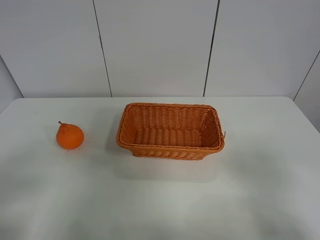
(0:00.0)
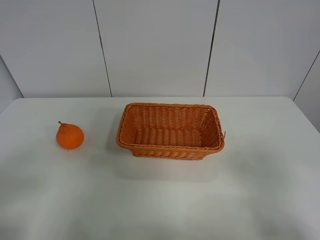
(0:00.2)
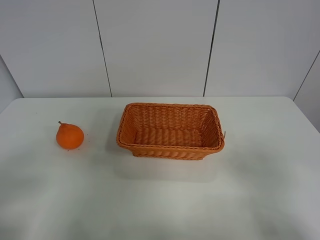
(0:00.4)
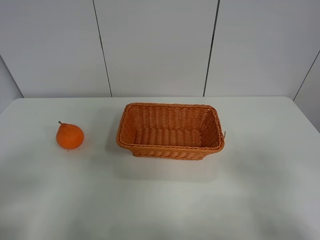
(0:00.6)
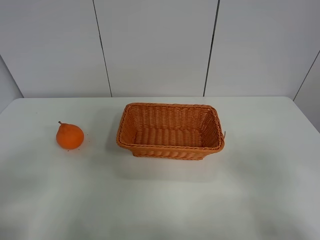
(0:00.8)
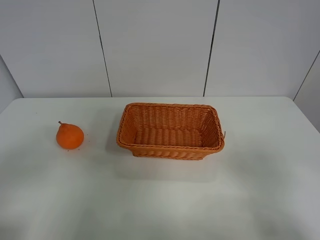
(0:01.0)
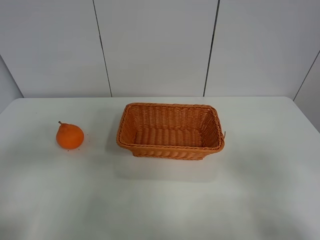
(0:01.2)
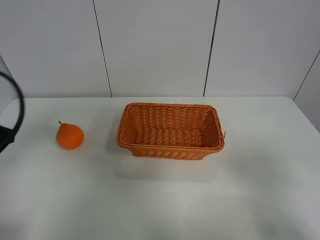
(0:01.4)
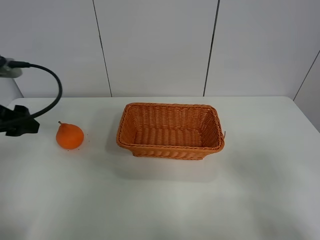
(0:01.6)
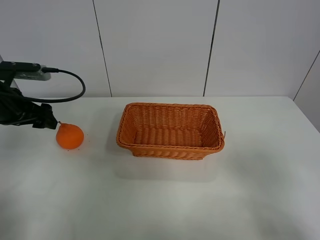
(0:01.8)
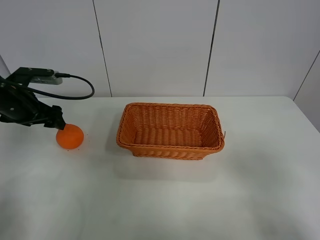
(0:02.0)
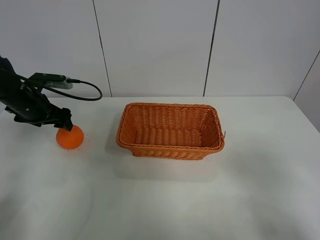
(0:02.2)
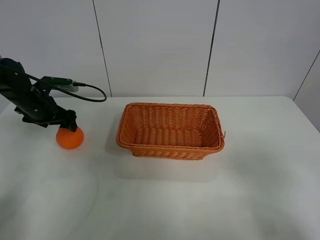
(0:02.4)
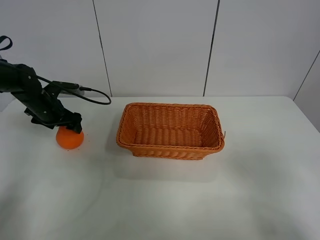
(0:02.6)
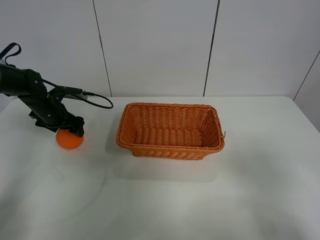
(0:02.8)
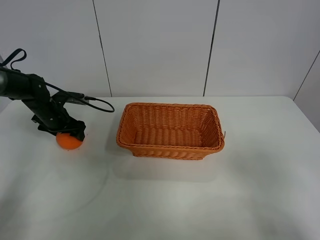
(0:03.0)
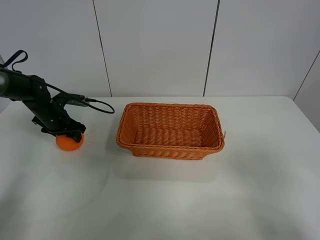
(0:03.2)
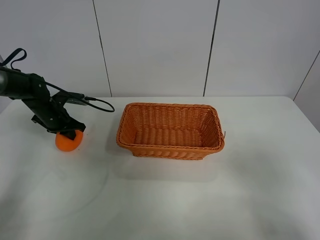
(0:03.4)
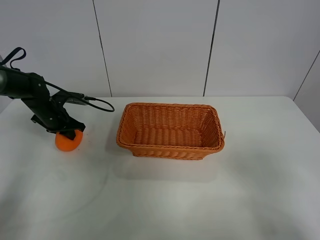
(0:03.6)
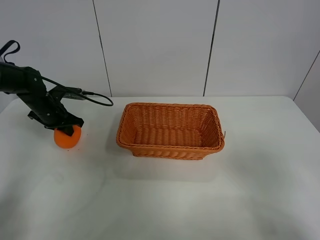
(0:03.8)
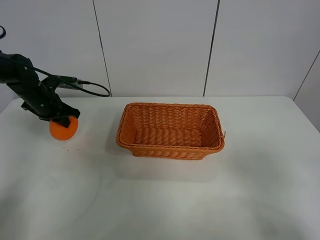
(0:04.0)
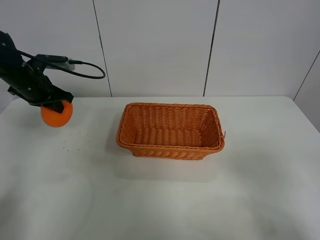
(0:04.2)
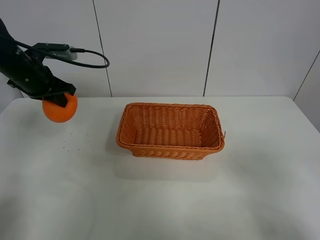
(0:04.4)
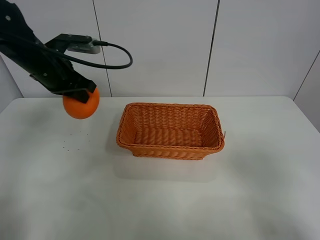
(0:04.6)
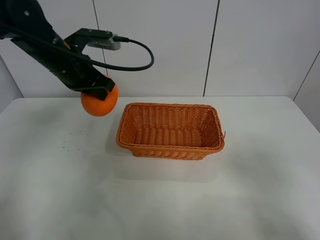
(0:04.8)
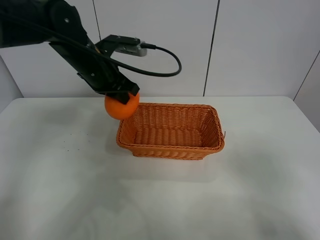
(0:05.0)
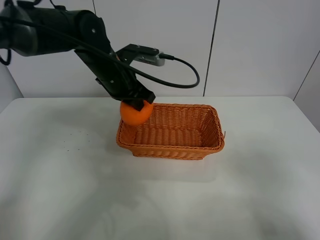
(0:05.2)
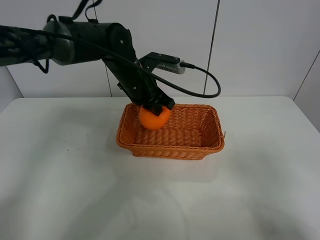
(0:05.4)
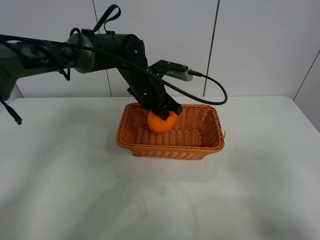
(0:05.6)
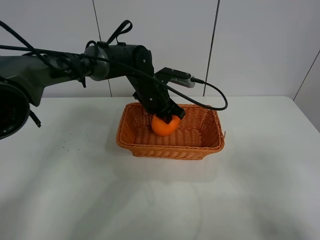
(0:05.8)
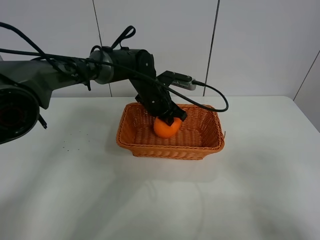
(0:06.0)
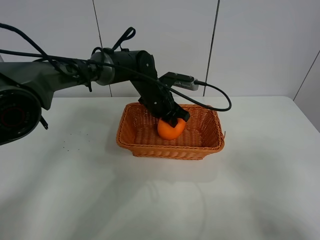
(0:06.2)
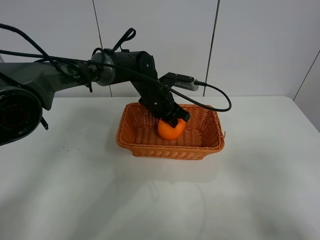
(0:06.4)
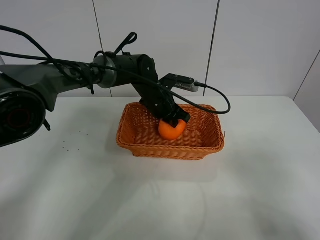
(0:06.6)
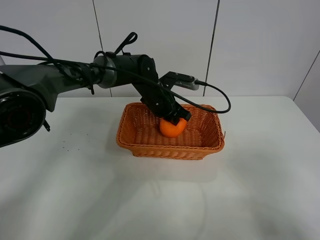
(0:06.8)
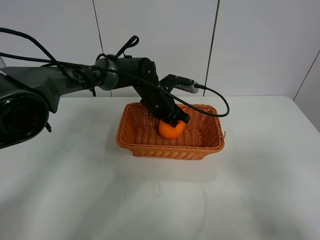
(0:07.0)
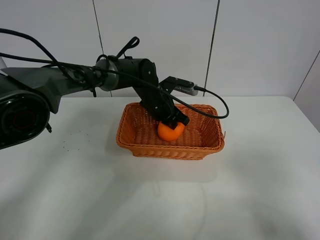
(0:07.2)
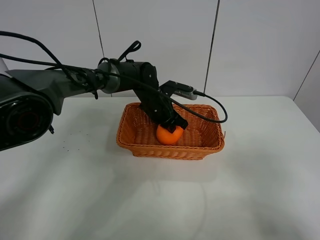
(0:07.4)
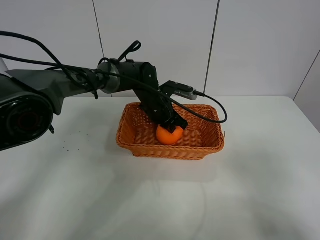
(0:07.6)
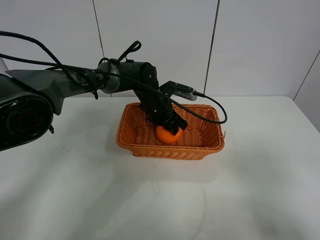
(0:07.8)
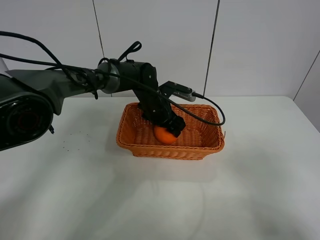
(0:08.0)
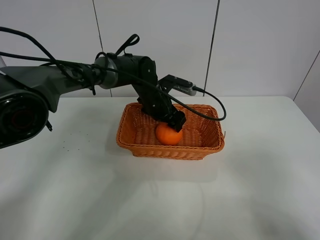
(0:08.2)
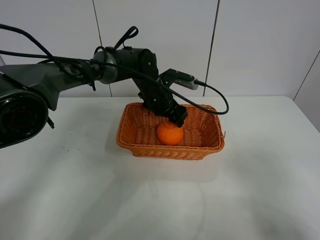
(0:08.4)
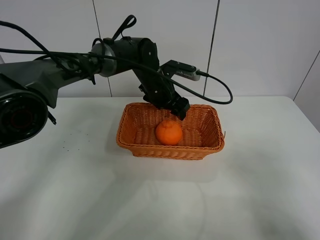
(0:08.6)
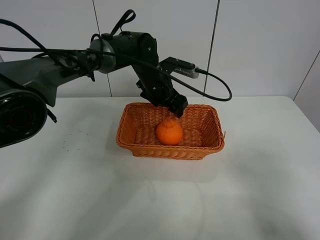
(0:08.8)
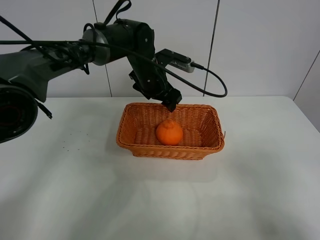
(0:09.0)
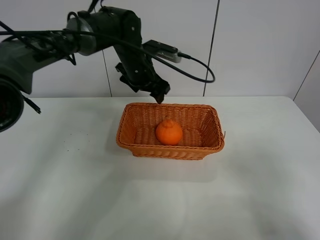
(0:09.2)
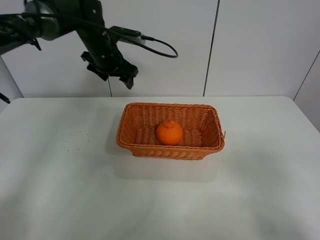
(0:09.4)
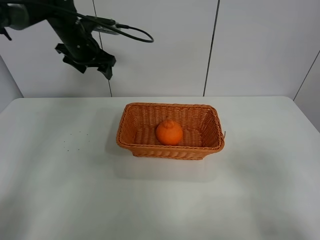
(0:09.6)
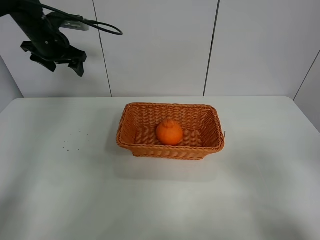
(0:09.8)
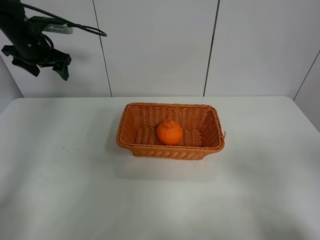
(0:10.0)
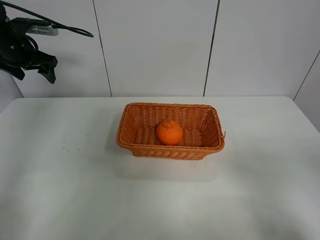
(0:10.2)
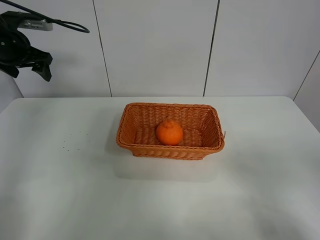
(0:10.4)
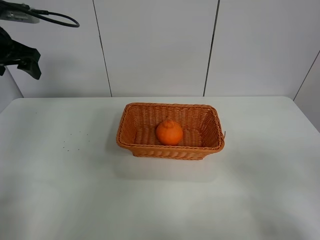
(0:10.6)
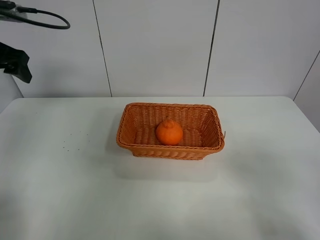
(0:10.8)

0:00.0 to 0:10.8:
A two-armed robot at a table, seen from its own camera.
Task of the whole recording: left gripper grabs oranges and puts them in the basket.
Step, 0:00.0 to 0:03.6: Grasp the orange with left gripper.
Step, 0:03.8 to 0:09.4: Place the orange in the basket with left gripper.
0:00.0 to 0:01.6: The left gripper moves forward, some 25 cm.
0:01.6 to 0:03.0: The left gripper is displaced forward and downward by some 25 cm.
0:03.0 to 0:04.6: The left gripper shifts approximately 20 cm upward and to the right, and closes.
0:04.6 to 0:06.2: The left gripper travels to the right and downward by some 20 cm.
0:06.2 to 0:07.8: The left gripper opens up.
0:07.8 to 0:09.2: The left gripper goes about 10 cm upward and to the left.
0:09.2 to 0:10.8: The left gripper shifts approximately 30 cm to the left, backward and upward.

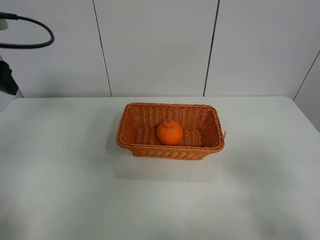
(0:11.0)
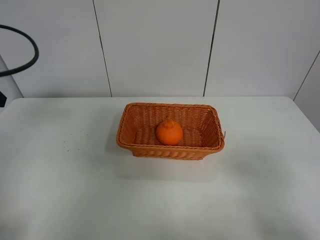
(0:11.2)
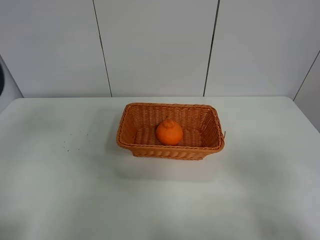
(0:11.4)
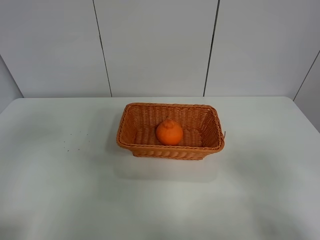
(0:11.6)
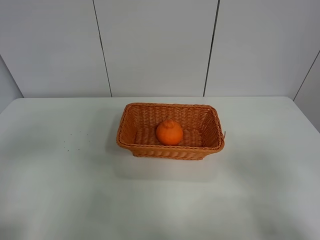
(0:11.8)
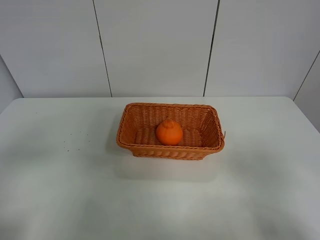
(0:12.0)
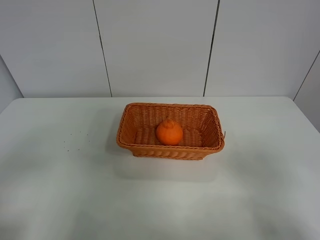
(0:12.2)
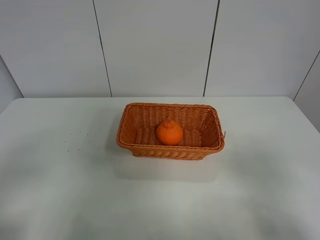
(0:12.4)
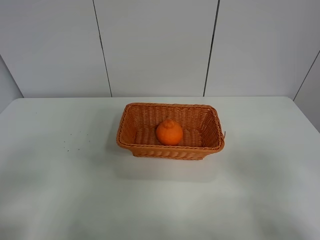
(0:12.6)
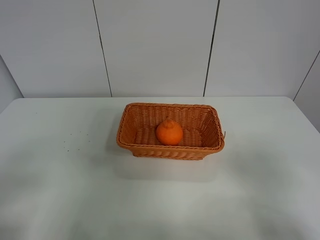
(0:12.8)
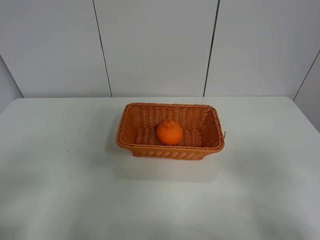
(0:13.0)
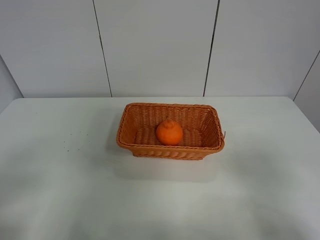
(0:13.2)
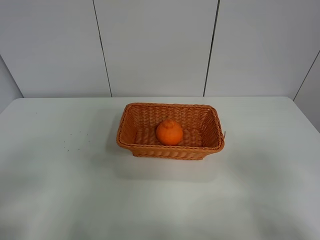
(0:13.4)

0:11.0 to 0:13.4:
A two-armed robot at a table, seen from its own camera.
Task of the whole recording: left gripper grabs oranges and puts them in the basket.
0:11.0 to 0:12.2: The left gripper travels backward by some 25 cm.
